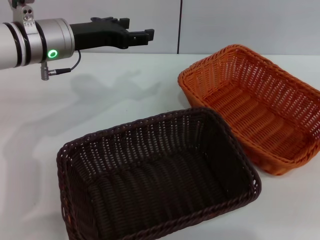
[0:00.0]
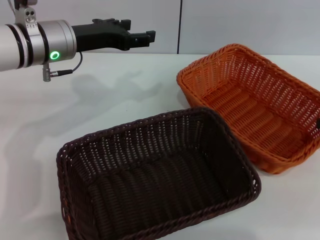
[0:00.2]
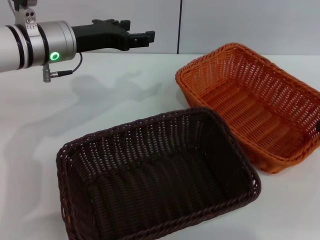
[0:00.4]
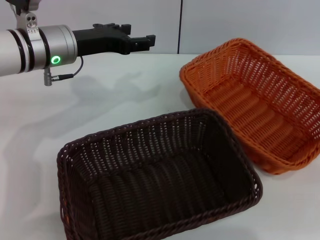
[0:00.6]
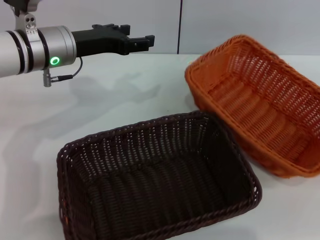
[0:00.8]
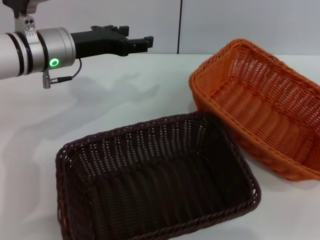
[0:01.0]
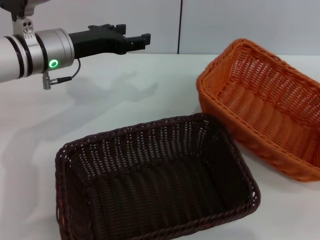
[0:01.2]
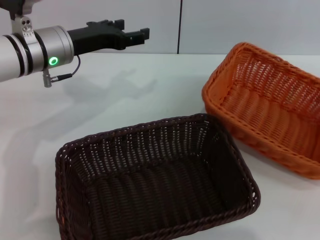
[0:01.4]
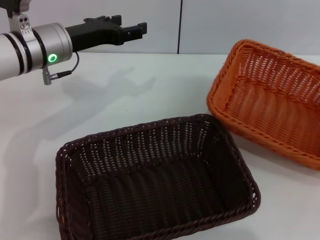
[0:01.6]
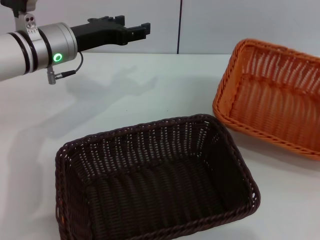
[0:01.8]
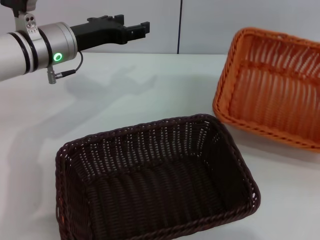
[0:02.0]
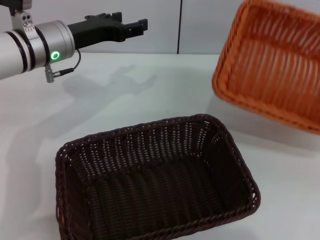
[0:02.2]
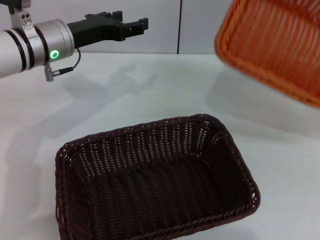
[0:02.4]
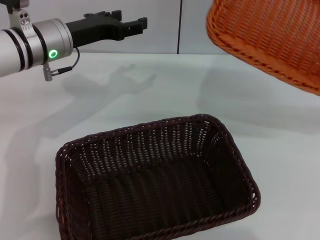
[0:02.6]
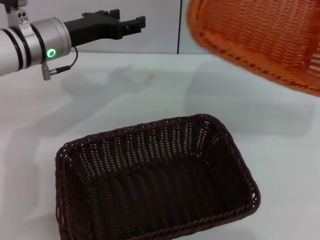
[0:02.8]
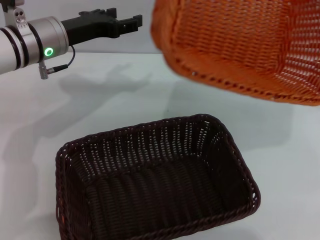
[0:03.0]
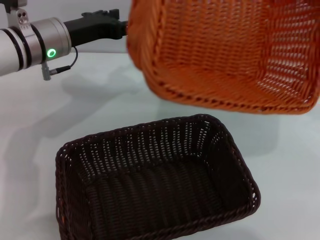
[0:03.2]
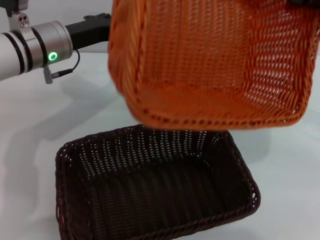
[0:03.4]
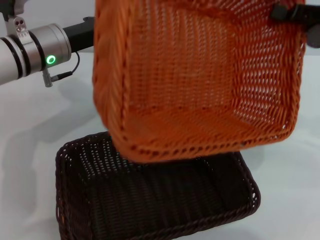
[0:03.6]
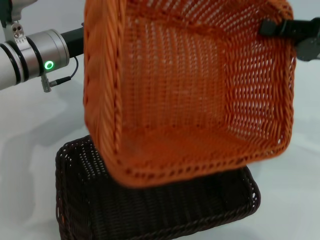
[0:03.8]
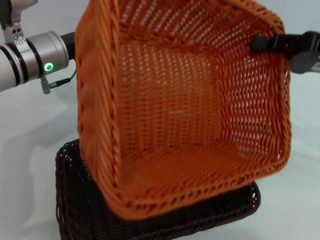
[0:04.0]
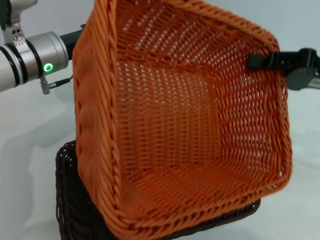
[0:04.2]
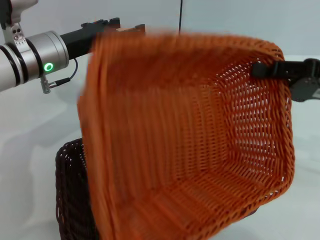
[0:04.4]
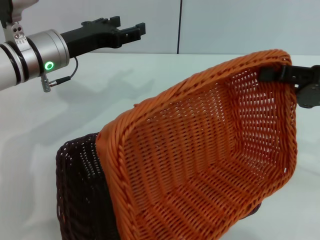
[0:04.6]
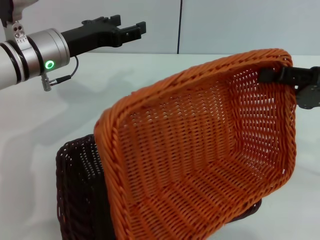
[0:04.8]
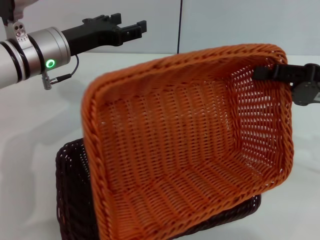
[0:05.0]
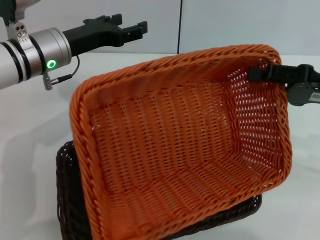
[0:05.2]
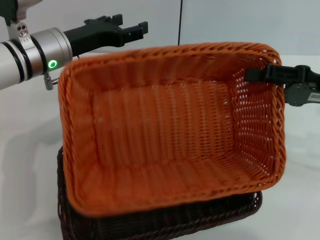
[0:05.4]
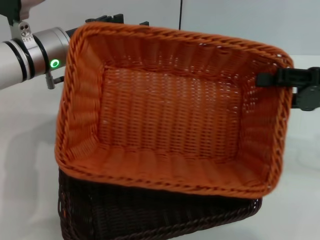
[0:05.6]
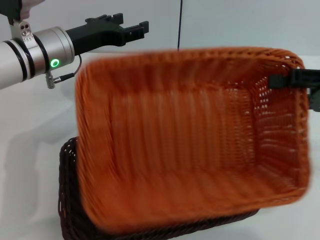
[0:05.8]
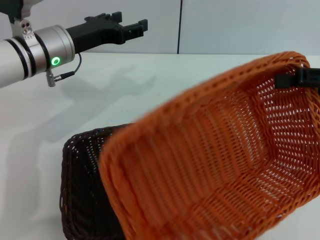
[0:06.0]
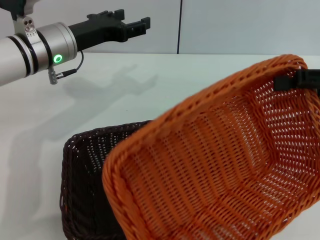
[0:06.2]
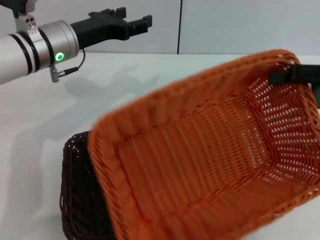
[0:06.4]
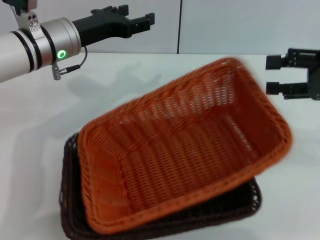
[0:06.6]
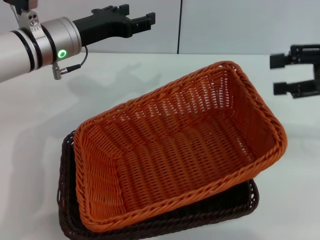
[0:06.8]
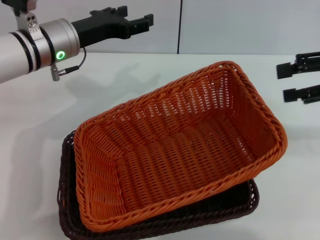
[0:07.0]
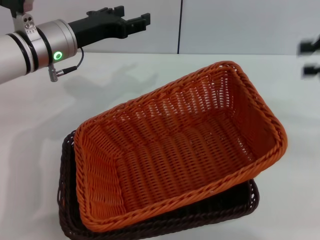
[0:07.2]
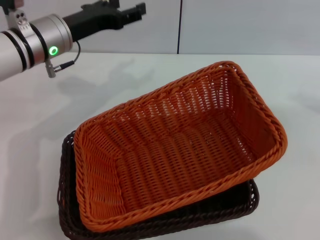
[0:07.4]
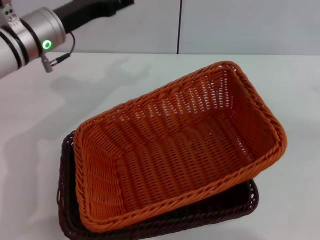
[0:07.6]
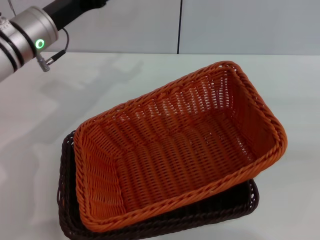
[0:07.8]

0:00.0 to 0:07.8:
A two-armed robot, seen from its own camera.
Step, 0:01.4 to 0:06.6: Place the light basket on the dark basket with the right gripper.
0:00.0 to 0:01.6: The right gripper closes.
0:01.6 to 0:03.2: The right gripper shifts roughly 10 cm to the left and upward.
0:03.2 to 0:04.6: The right gripper is displaced downward by approximately 5 cm.
0:04.6 to 0:06.2: The right gripper opens its fingers.
0:06.2 to 0:07.8: The right gripper goes some 10 cm to the right.
